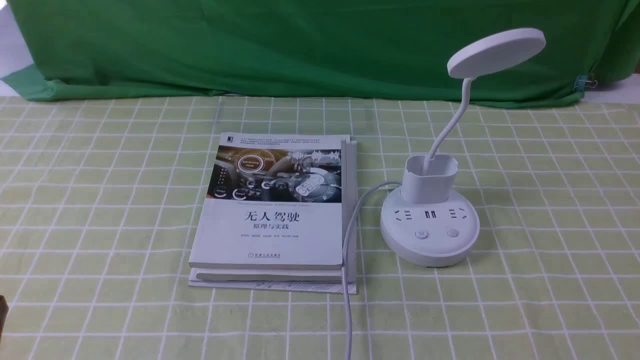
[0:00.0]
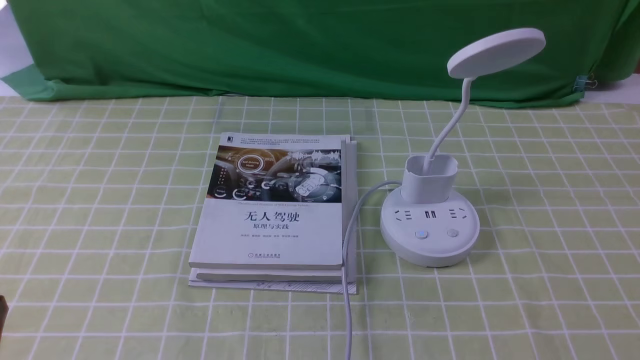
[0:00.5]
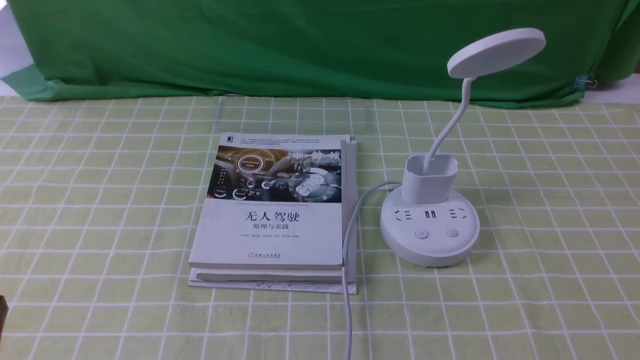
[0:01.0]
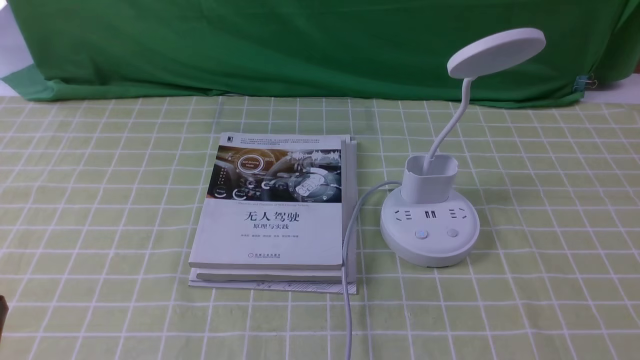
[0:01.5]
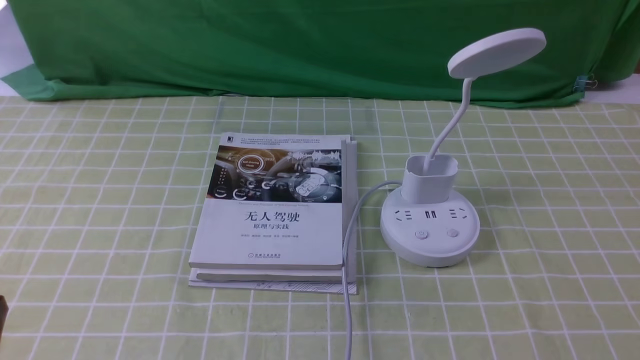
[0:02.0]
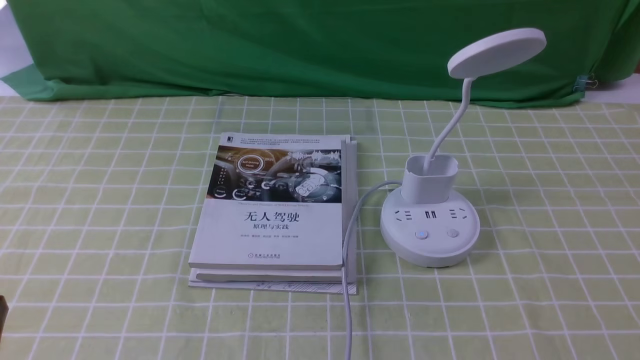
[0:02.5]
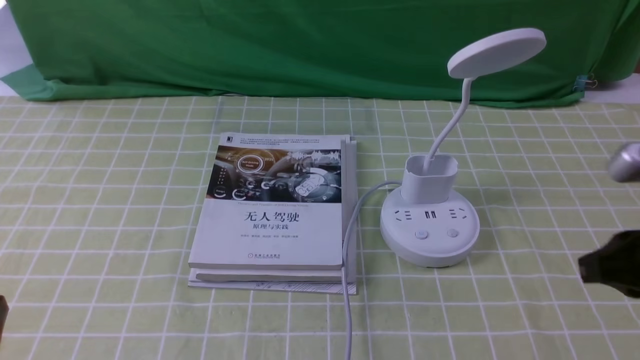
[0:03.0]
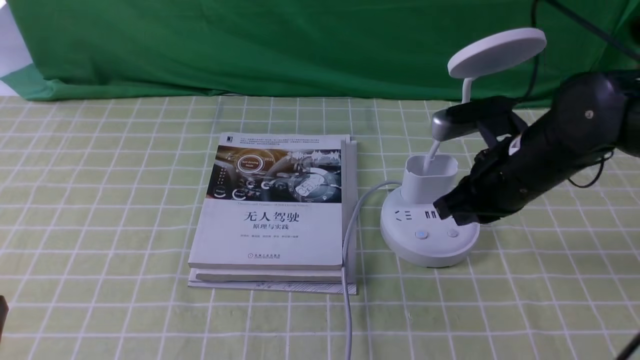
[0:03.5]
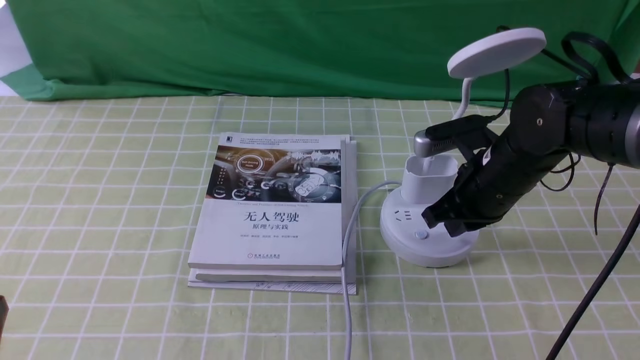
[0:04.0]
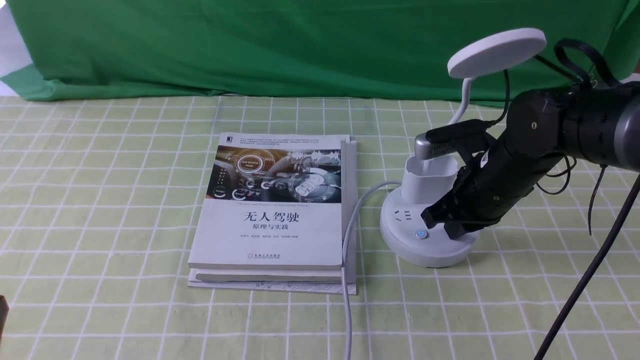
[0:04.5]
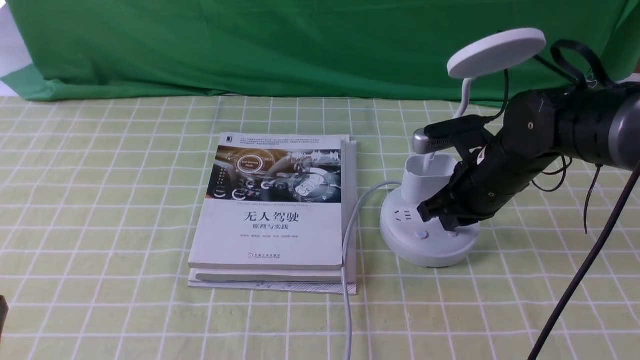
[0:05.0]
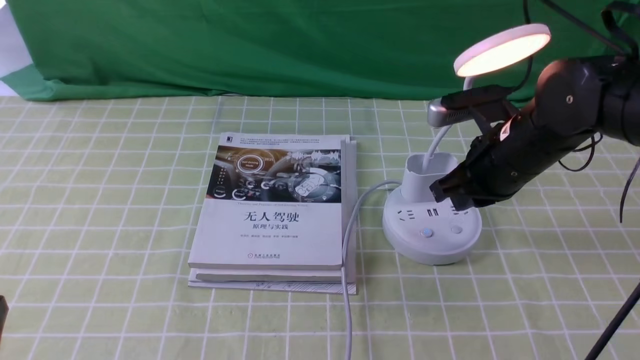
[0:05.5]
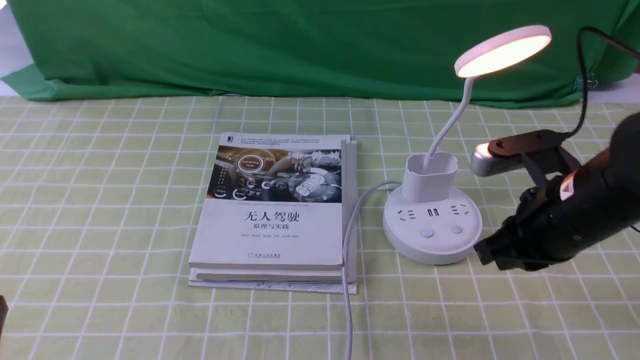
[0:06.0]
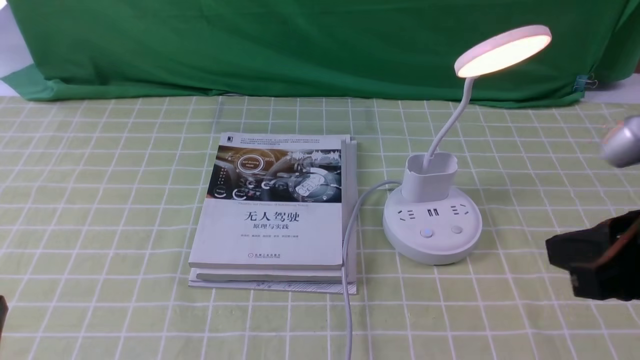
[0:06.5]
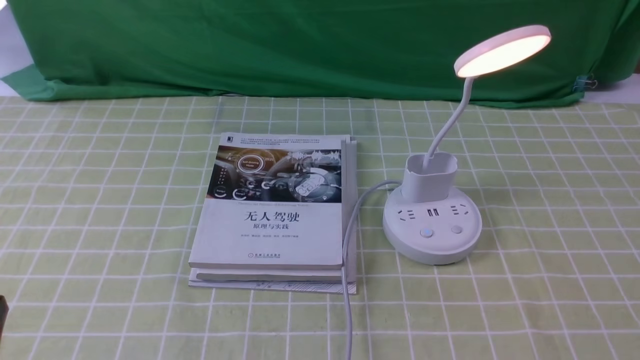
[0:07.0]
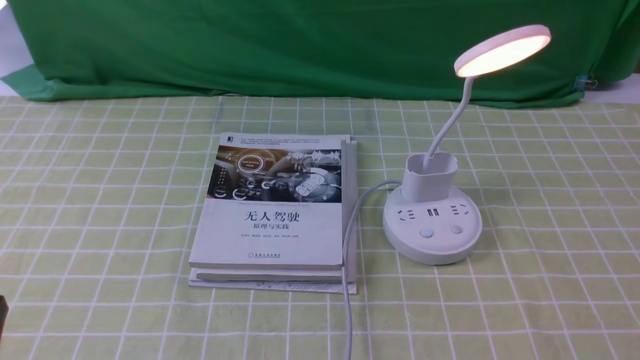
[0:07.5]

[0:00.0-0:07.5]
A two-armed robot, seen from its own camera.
Step, 0:00.0 to 0:05.0: use the right arm to press the button switch on the lamp holder.
0:02.0 to 0:04.0: The right gripper travels forward and to the left by approximately 35 cm, and closes its fingers.
0:04.0 to 0:05.5: The grippers move only a little.
0:05.5 to 0:07.5: The right gripper is displaced backward and to the right by roughly 30 cm.

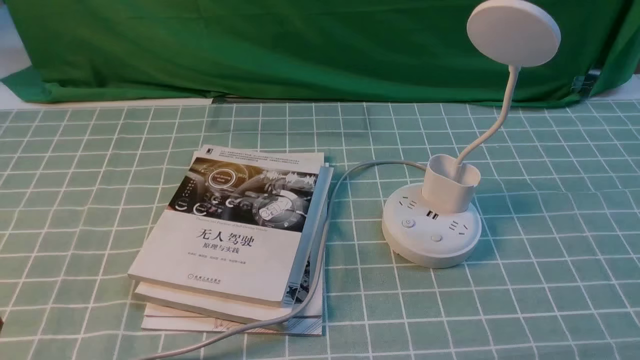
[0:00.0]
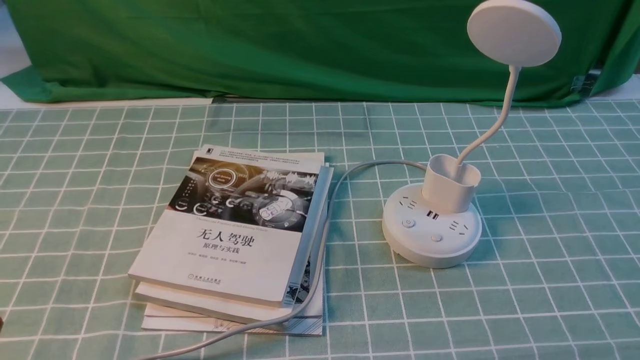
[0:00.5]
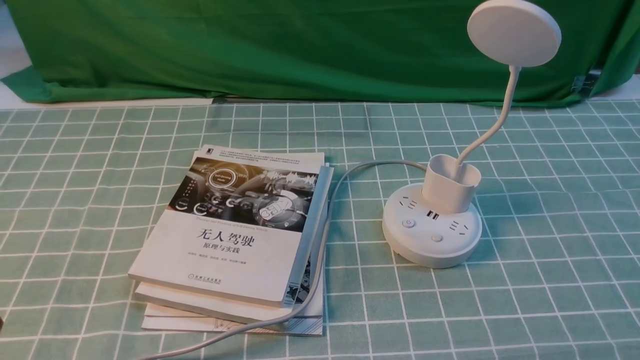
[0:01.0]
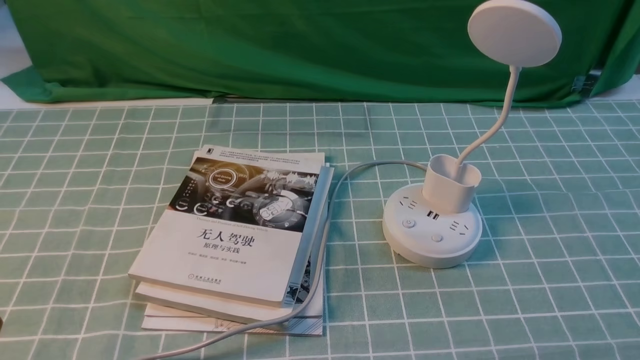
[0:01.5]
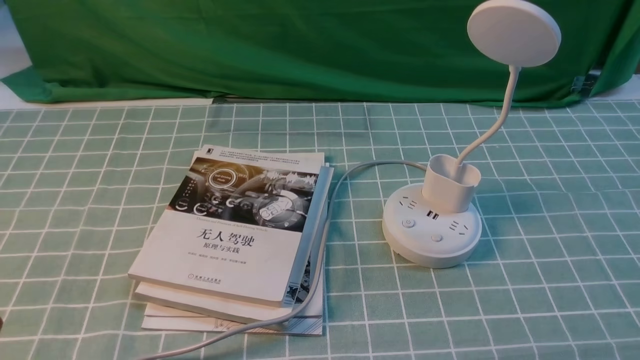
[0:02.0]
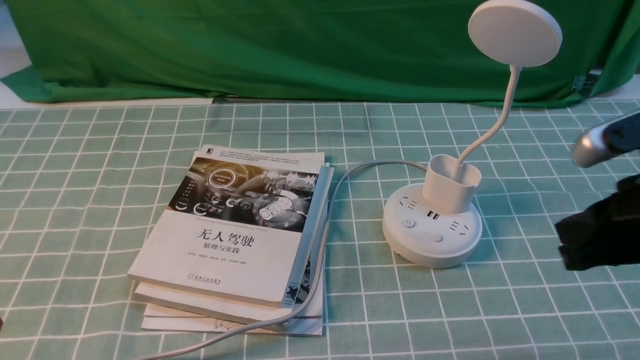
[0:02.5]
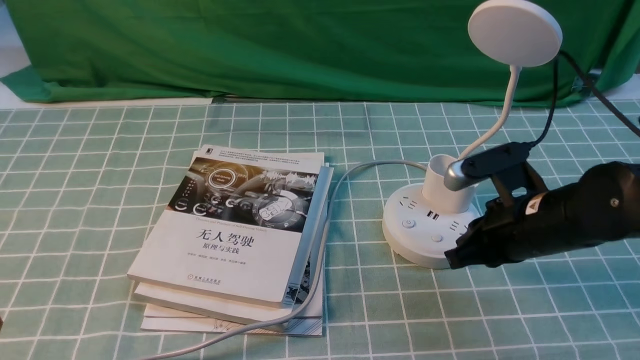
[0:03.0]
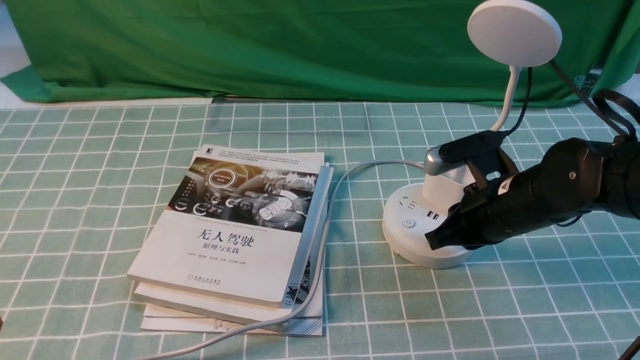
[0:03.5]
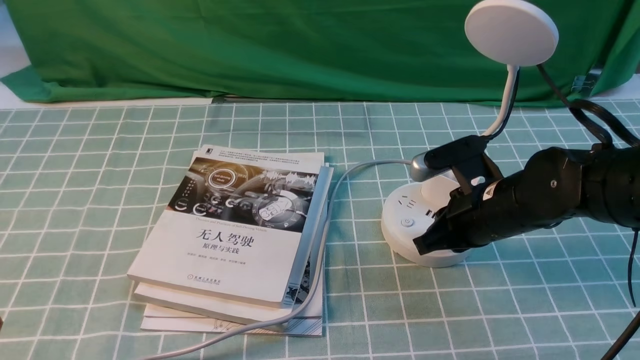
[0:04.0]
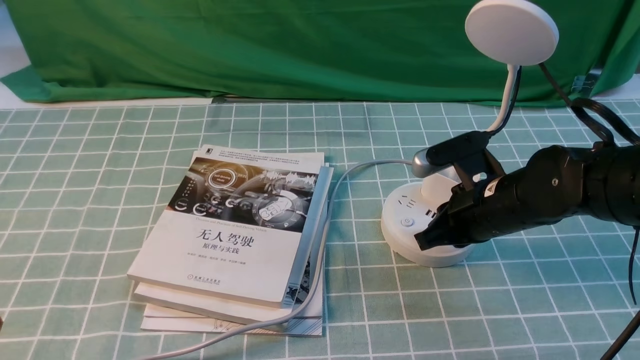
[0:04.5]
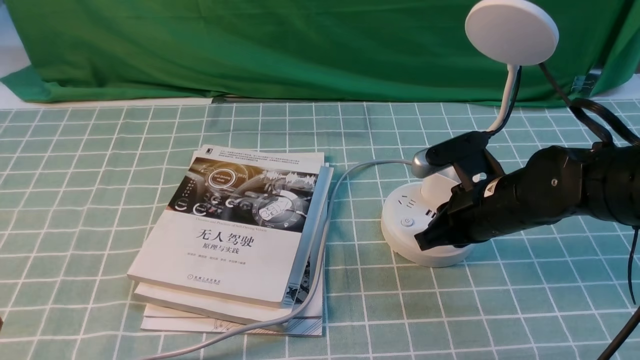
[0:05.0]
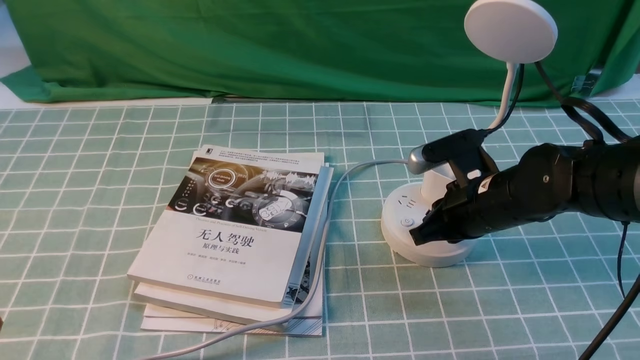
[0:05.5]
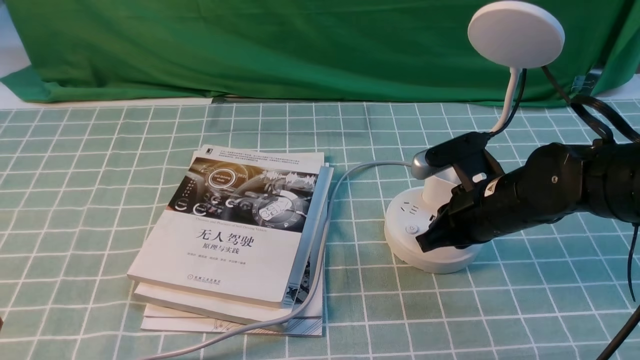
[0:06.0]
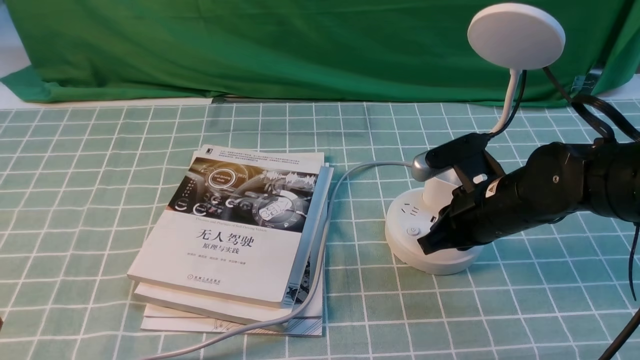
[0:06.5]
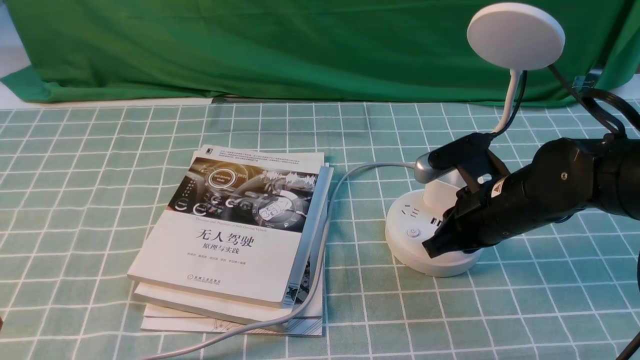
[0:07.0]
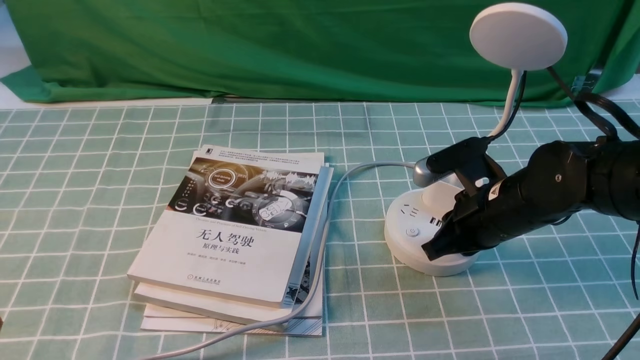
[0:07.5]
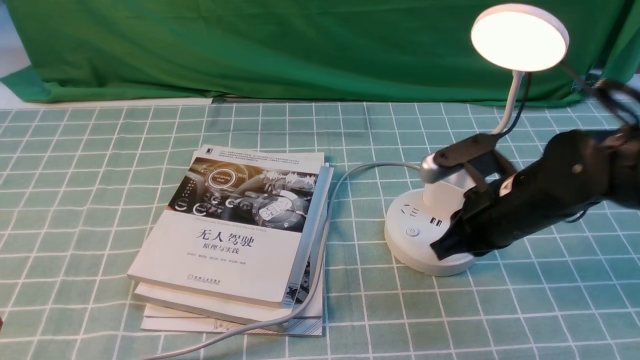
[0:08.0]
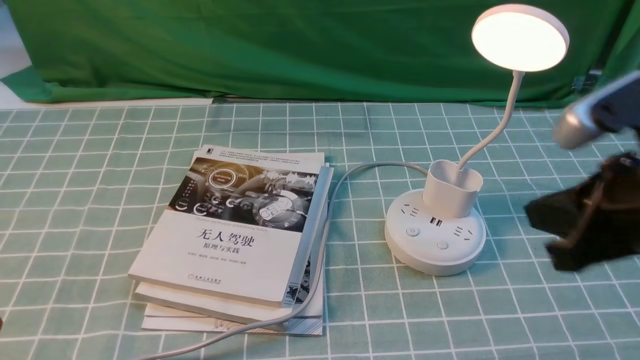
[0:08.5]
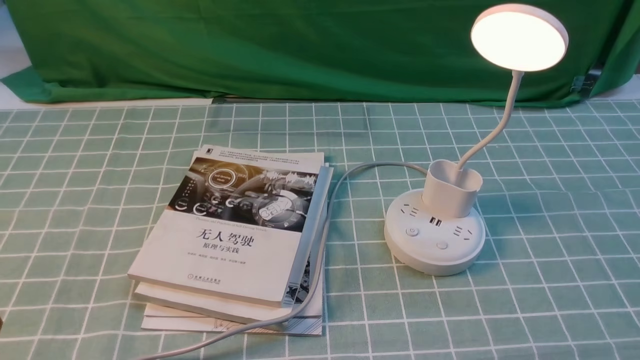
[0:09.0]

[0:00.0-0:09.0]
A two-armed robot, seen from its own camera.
Step, 0:00.0 to 0:08.0: use the right arm to press the button switch on the lamp holder.
0:02.0 to 0:04.5: The right gripper shifts some 30 cm forward, to the left and downward, and closes up.
0:04.5 to 0:07.0: The two grippers keep their place.
0:07.0 to 0:09.0: The right gripper moves backward, upward and to the right, approximately 30 cm.

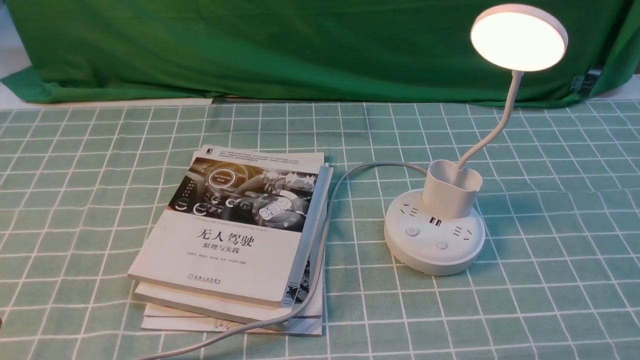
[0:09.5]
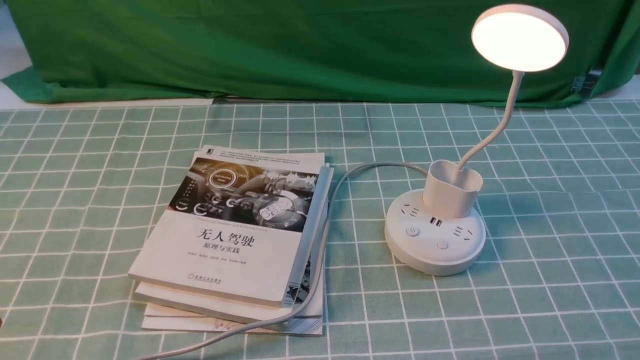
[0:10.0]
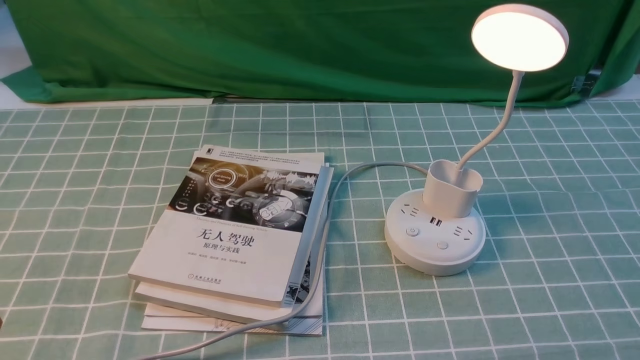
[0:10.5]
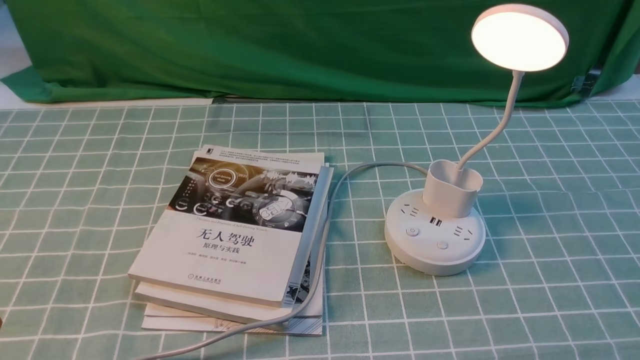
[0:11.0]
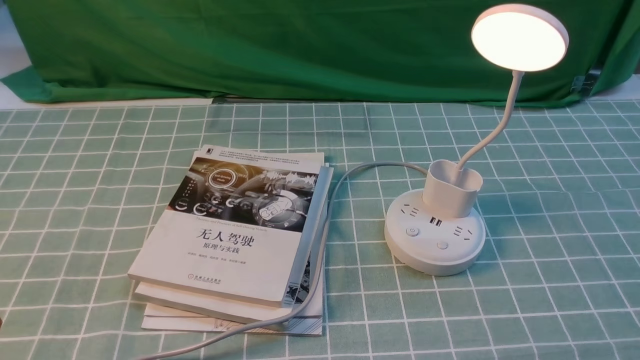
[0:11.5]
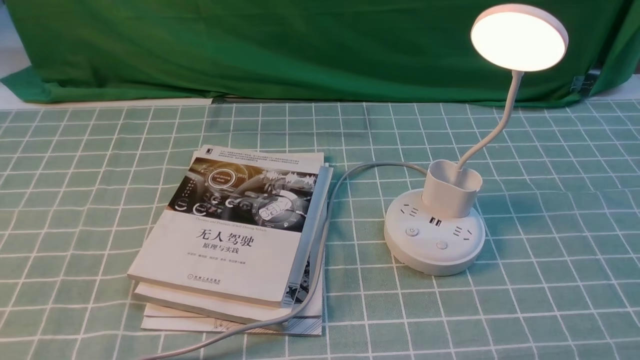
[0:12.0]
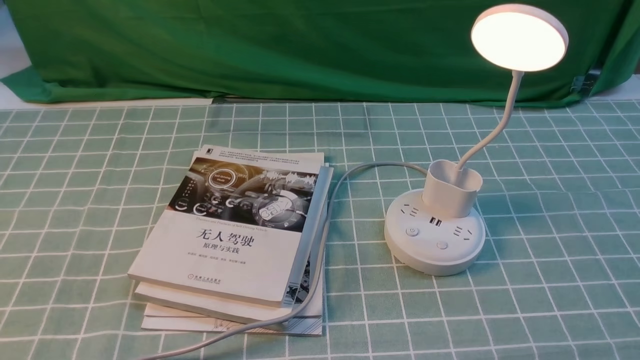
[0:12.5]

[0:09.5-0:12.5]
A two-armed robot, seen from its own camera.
0:11.0 to 0:12.5: Both grippers stay put.
